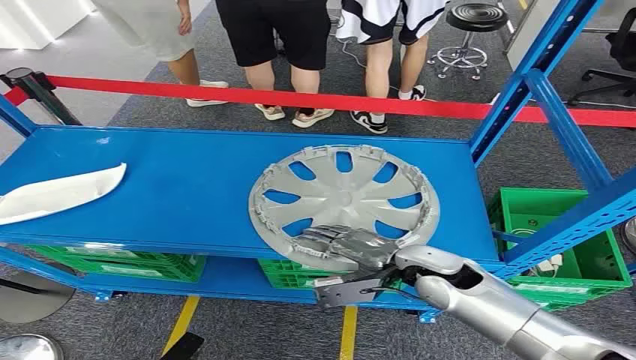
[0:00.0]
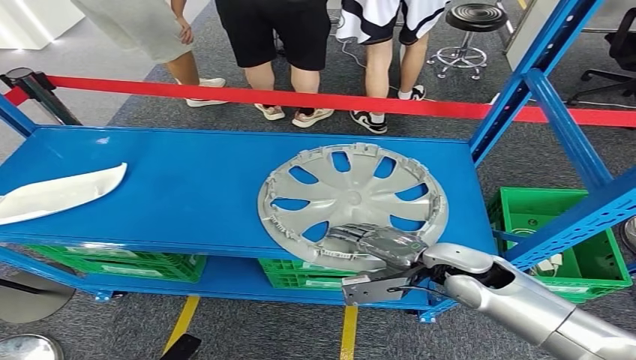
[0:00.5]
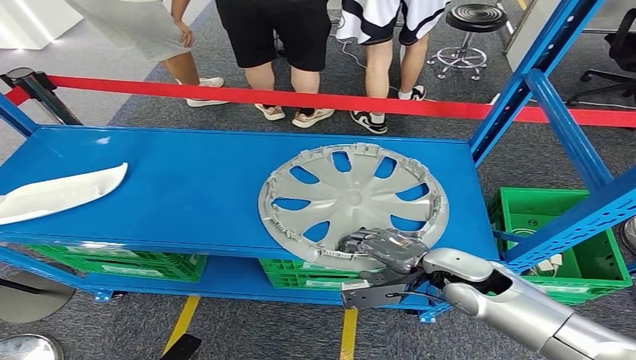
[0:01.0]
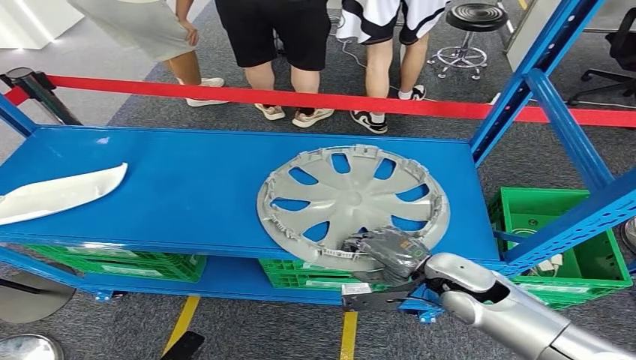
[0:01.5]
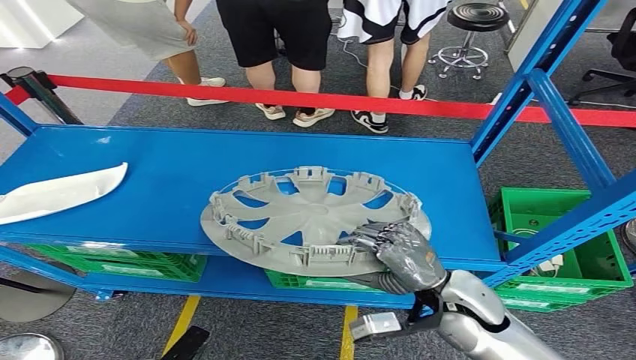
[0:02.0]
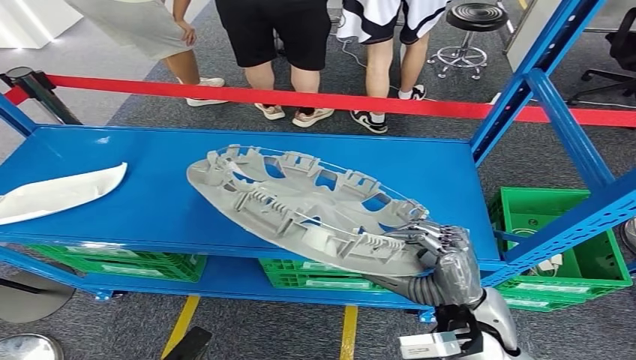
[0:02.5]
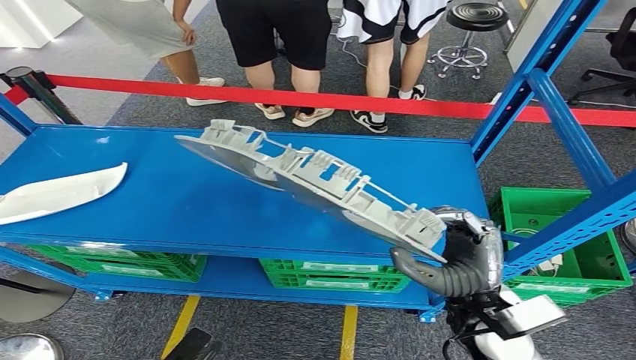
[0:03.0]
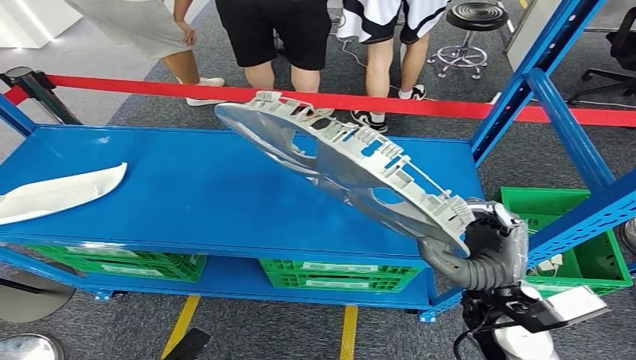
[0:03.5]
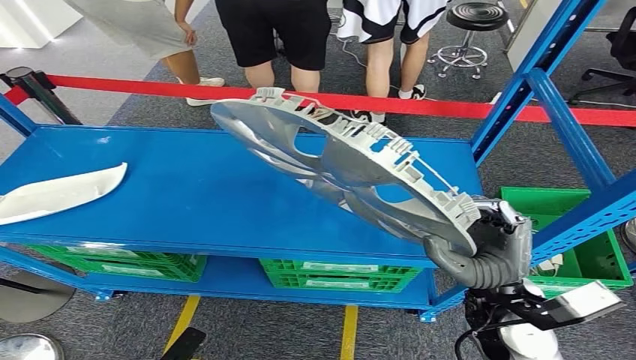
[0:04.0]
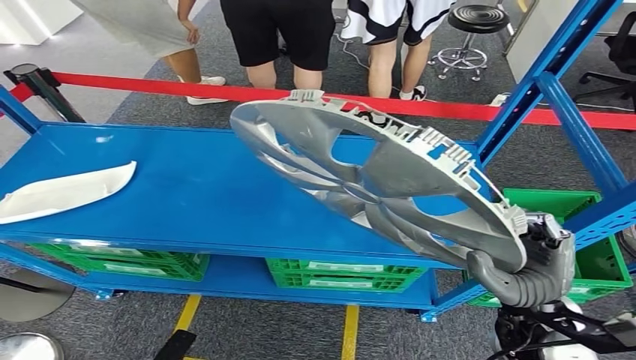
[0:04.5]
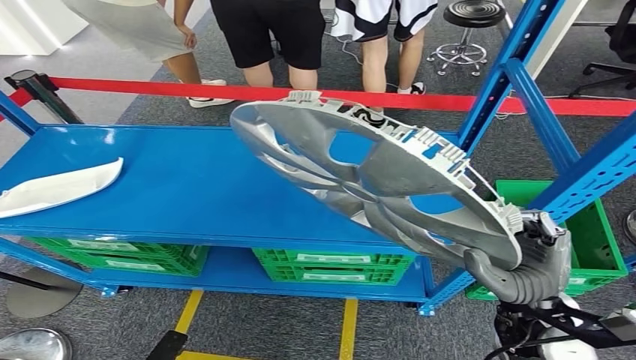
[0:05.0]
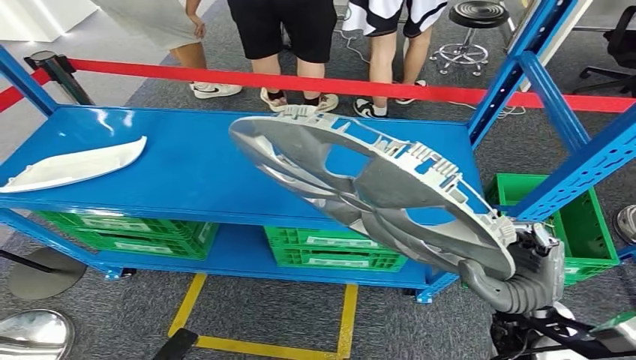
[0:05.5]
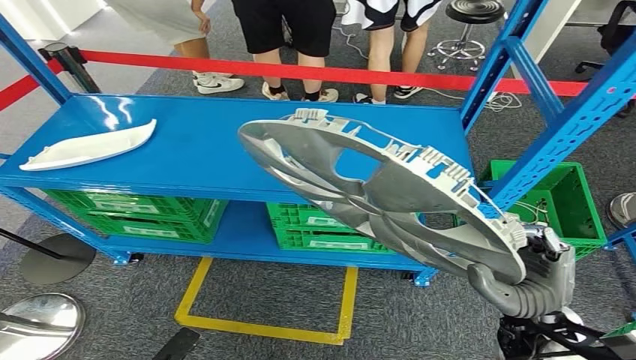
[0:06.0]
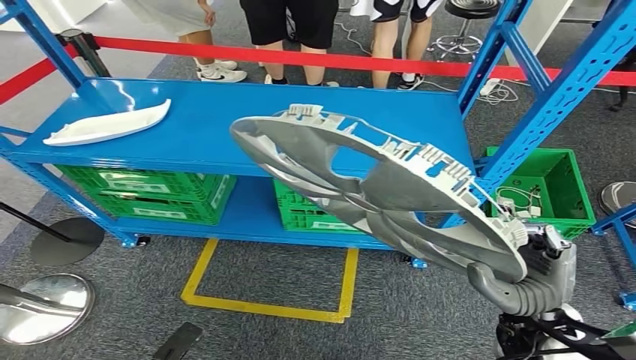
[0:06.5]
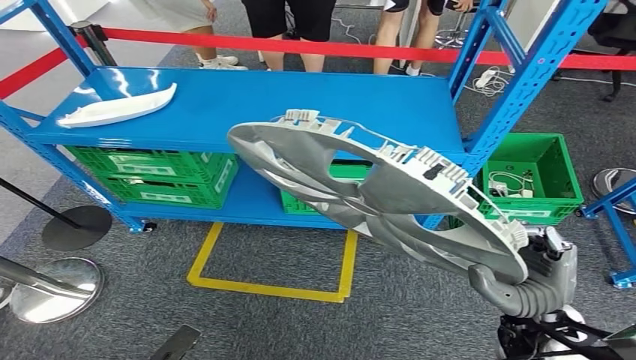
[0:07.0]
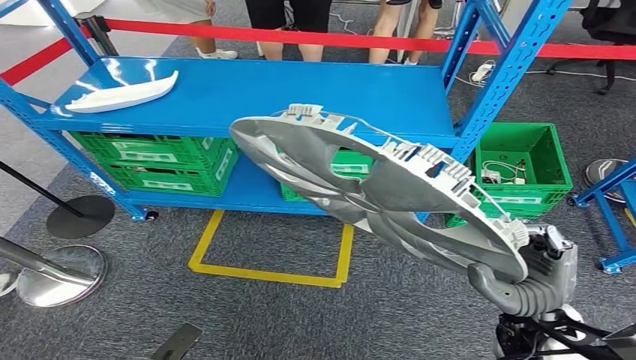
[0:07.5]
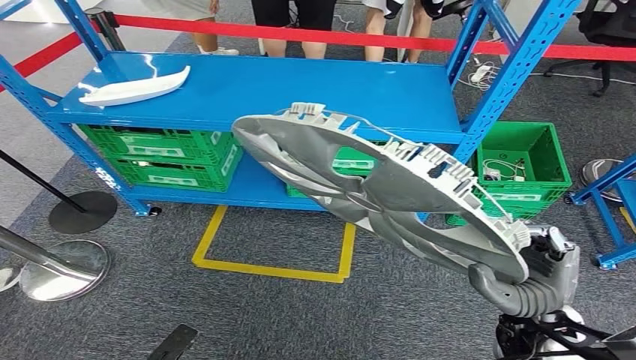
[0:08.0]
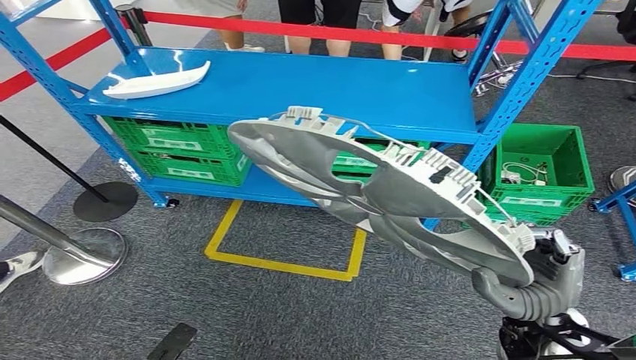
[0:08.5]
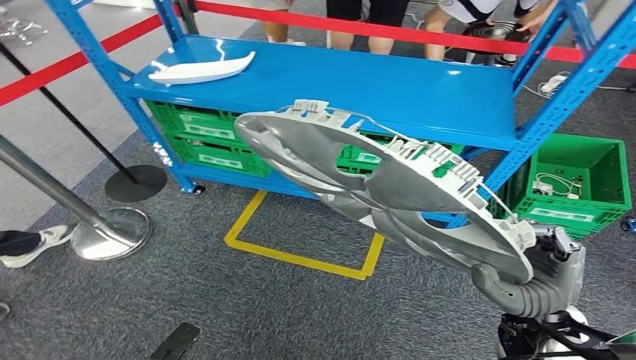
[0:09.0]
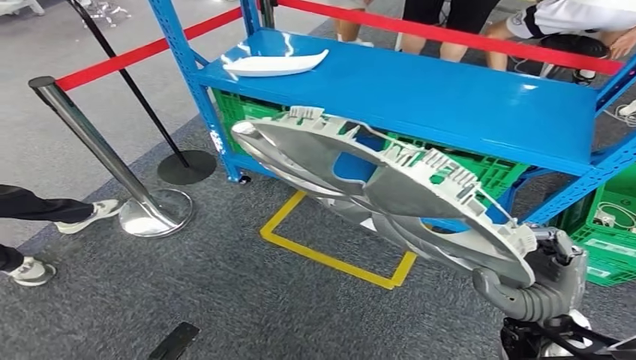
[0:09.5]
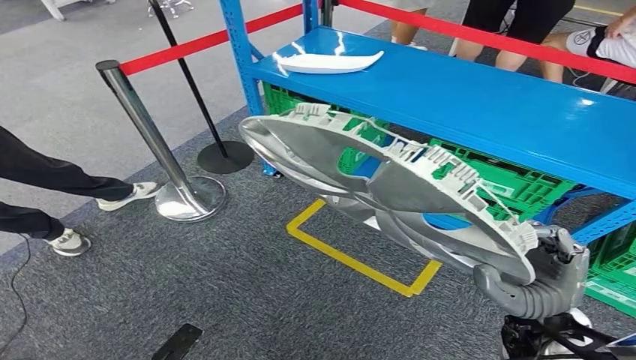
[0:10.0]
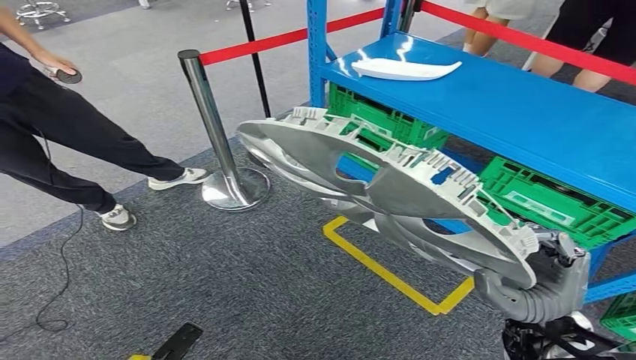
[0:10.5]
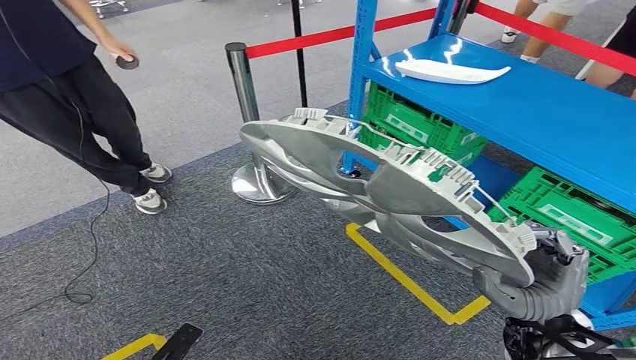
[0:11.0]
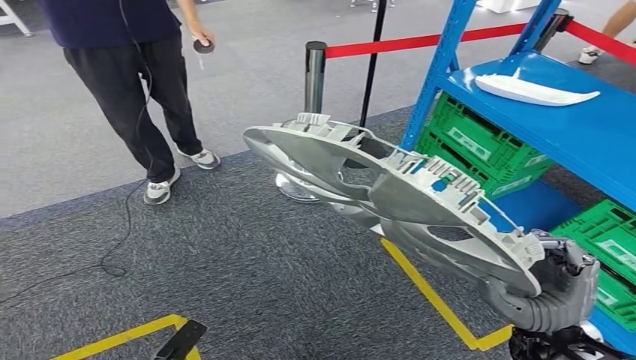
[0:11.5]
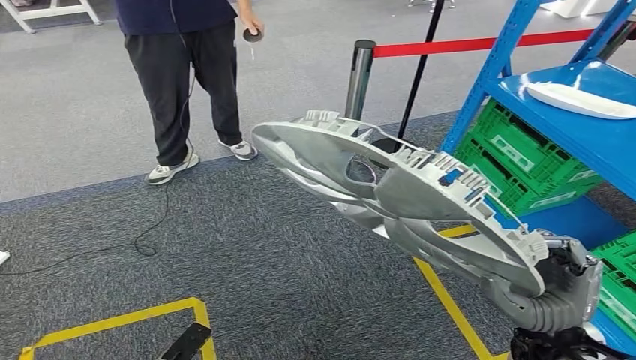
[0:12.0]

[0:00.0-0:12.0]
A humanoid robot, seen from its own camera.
Step, 0:00.0 to 0:04.5: Pick up the small parts from the shelf.

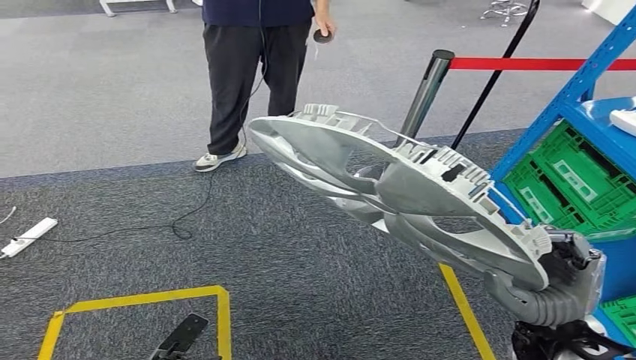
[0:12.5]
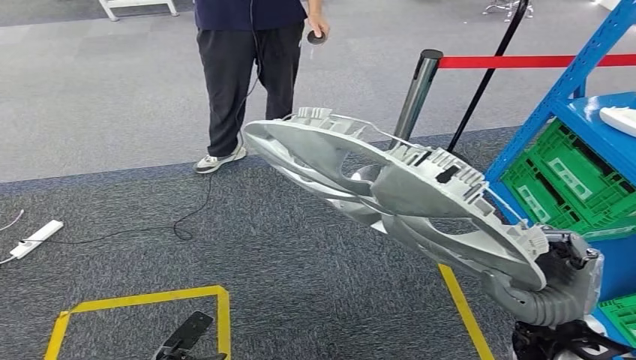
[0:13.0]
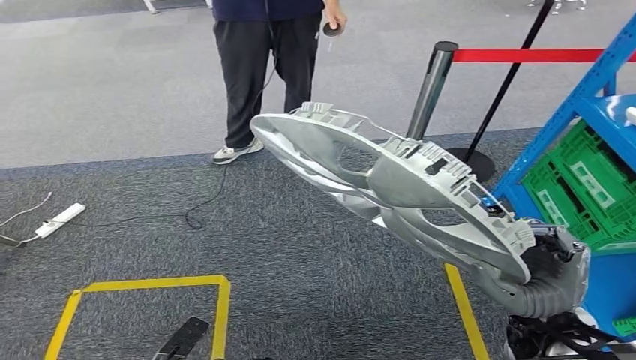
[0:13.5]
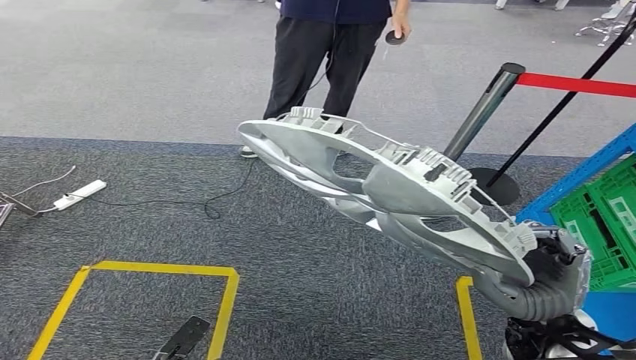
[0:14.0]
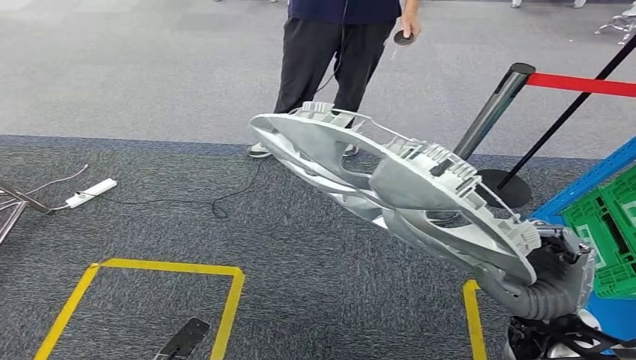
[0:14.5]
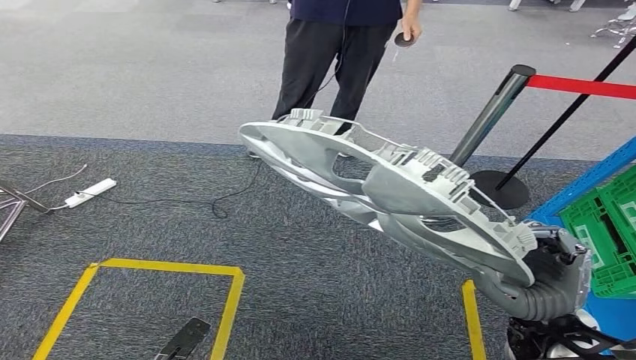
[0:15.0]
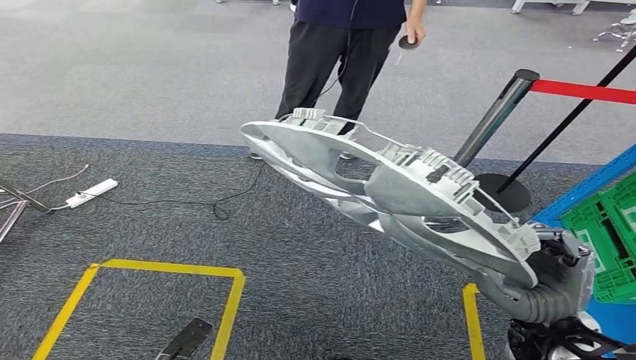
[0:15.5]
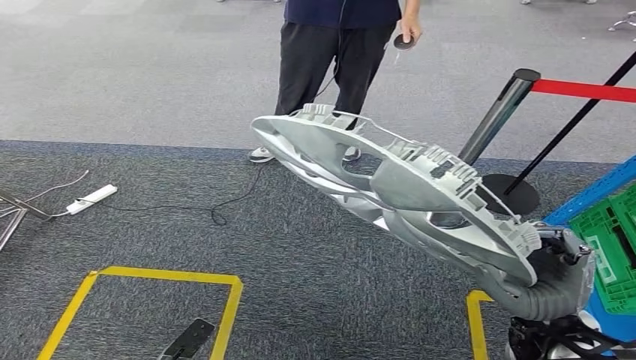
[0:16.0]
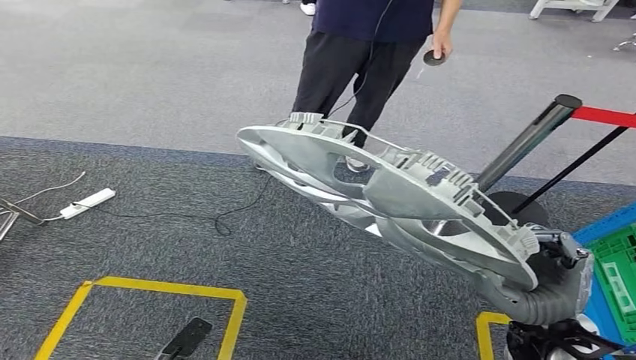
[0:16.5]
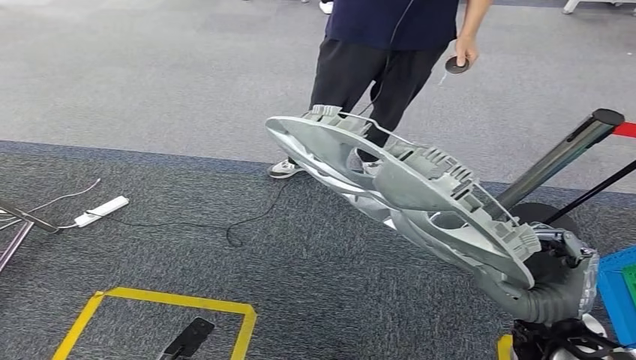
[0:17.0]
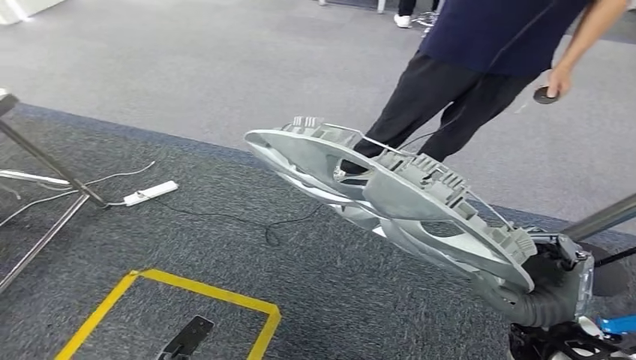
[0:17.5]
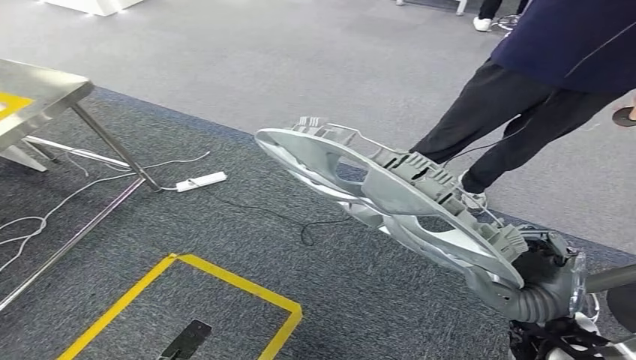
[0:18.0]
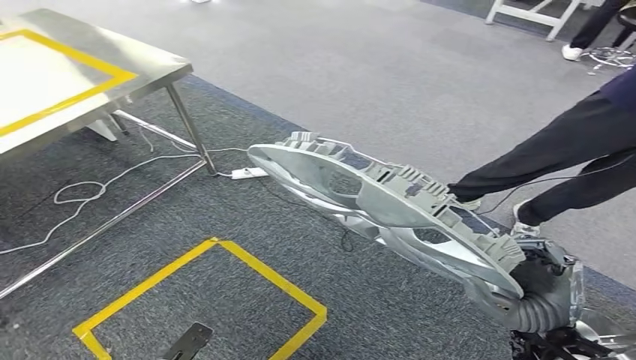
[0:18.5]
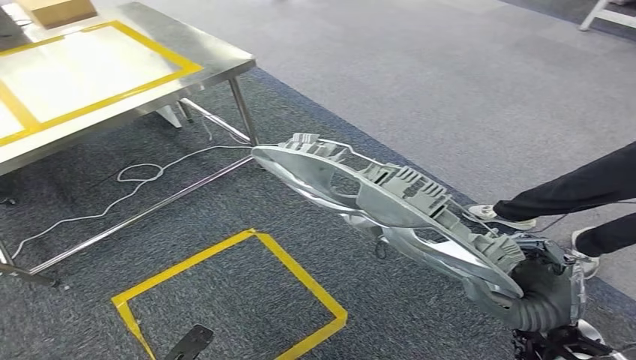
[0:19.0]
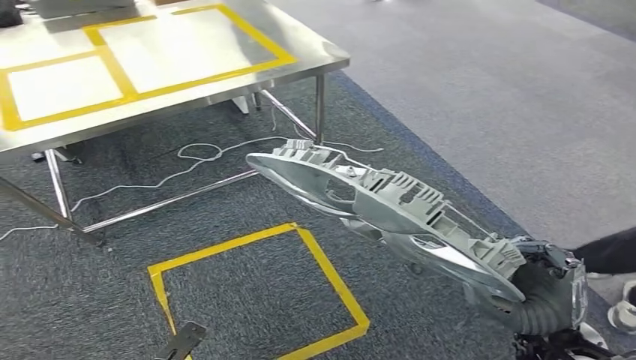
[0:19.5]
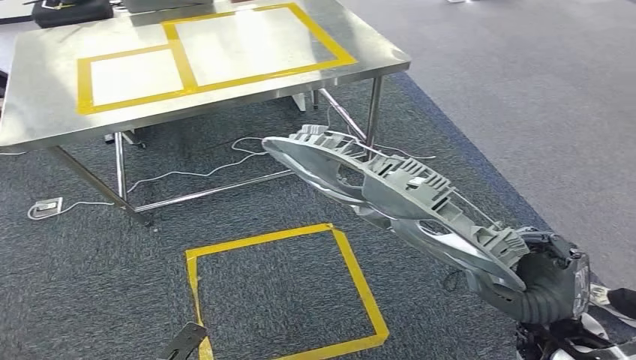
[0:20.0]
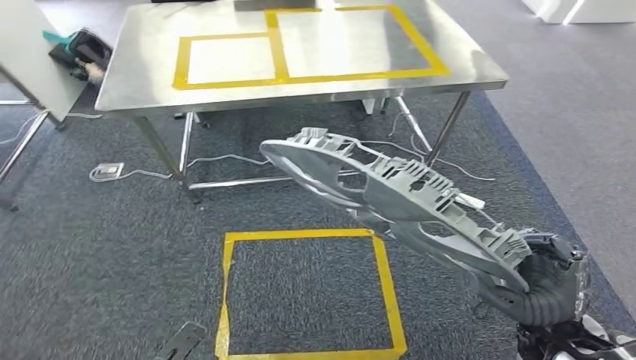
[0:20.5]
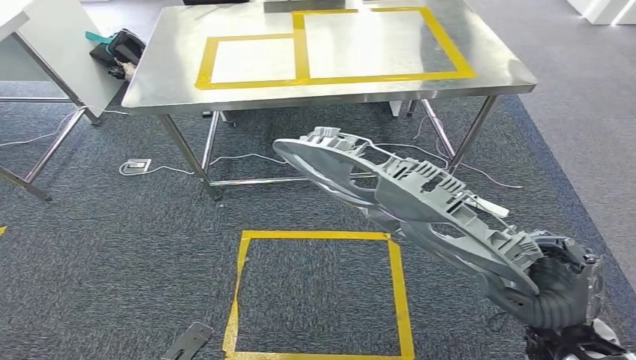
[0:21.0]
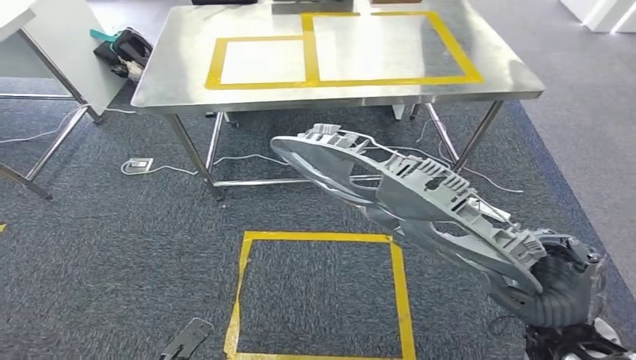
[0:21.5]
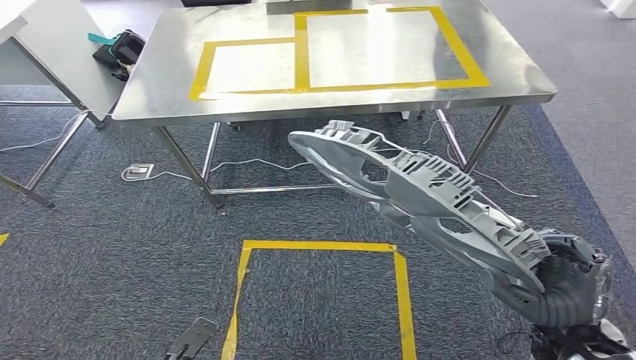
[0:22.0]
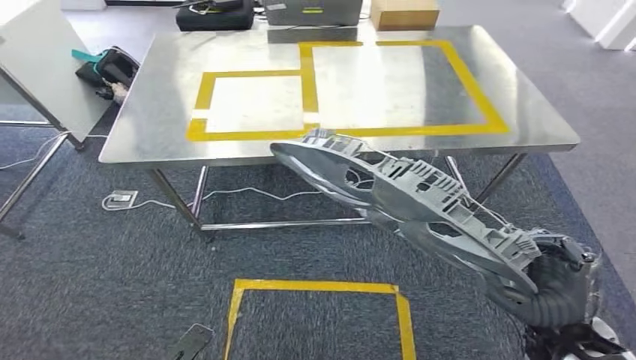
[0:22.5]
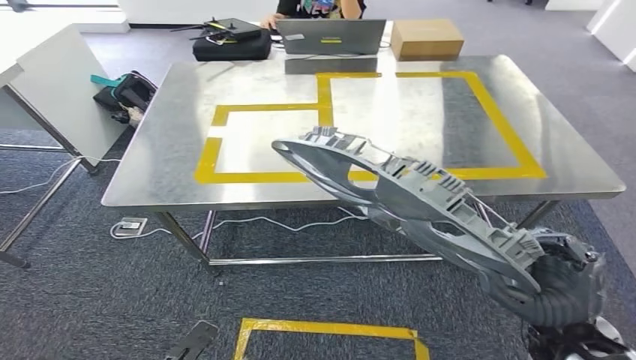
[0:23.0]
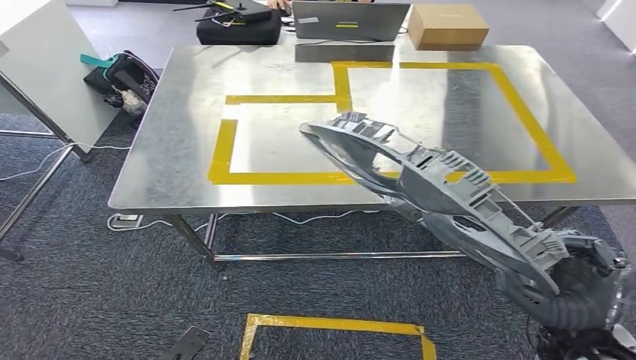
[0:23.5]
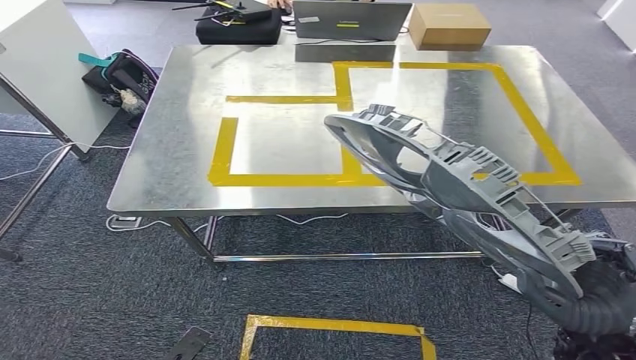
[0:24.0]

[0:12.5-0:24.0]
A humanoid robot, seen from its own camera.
Step, 0:12.5 to 0:23.0: Move the small parts to the workbench.
